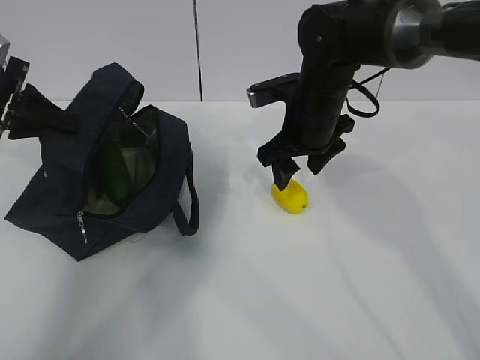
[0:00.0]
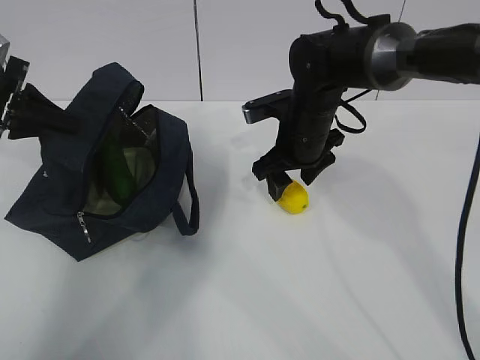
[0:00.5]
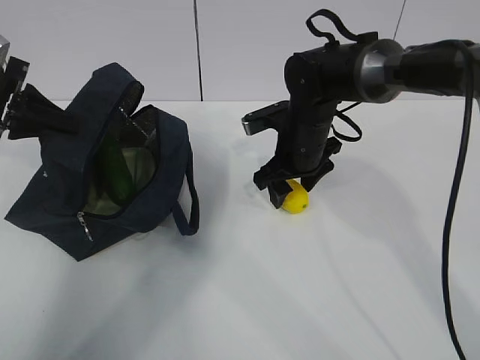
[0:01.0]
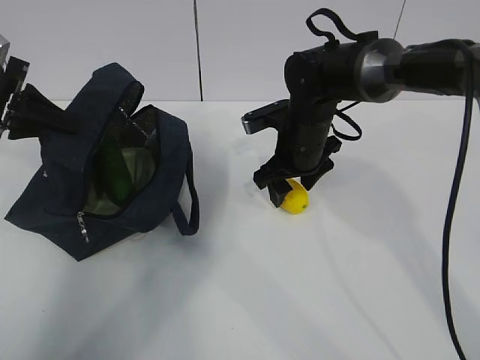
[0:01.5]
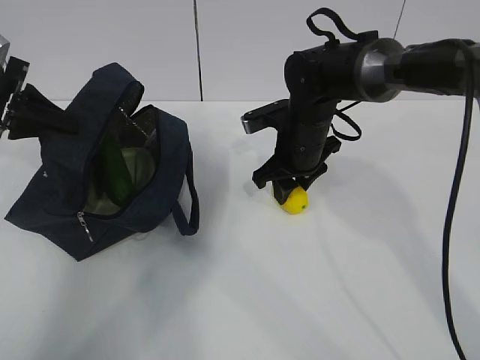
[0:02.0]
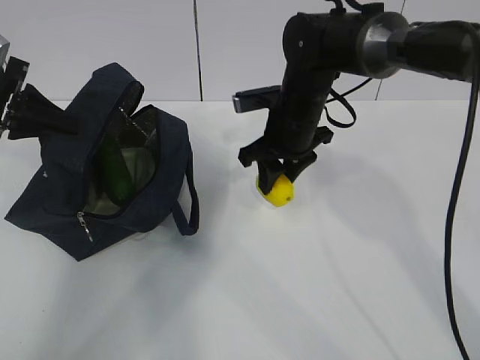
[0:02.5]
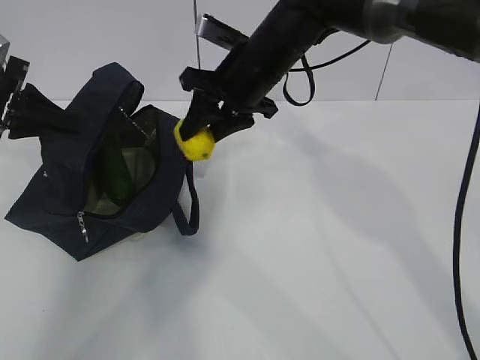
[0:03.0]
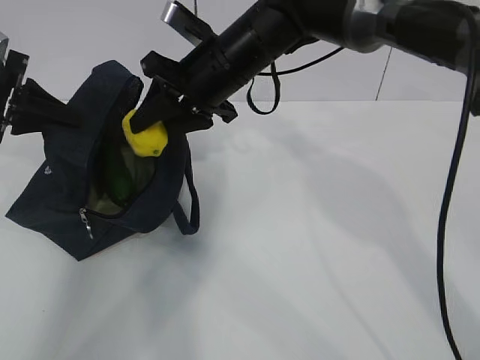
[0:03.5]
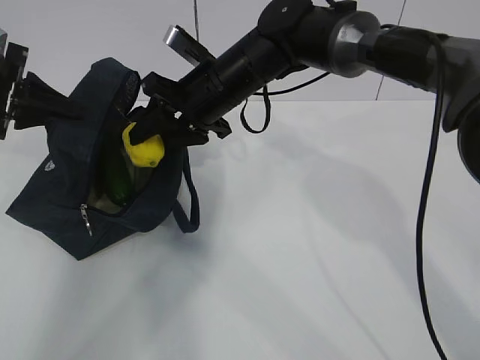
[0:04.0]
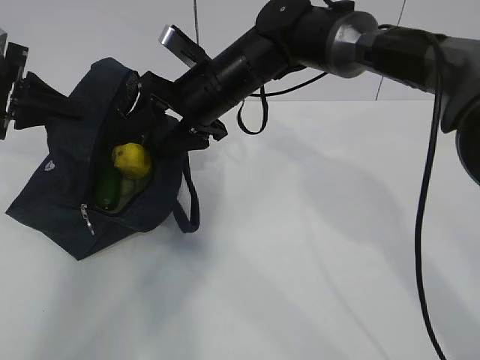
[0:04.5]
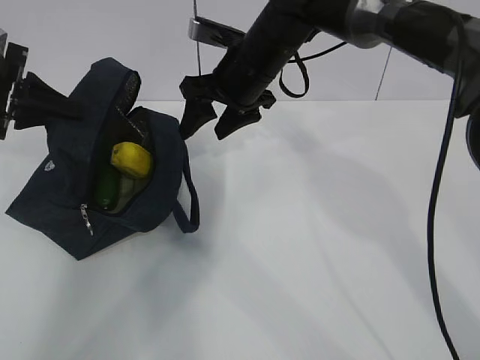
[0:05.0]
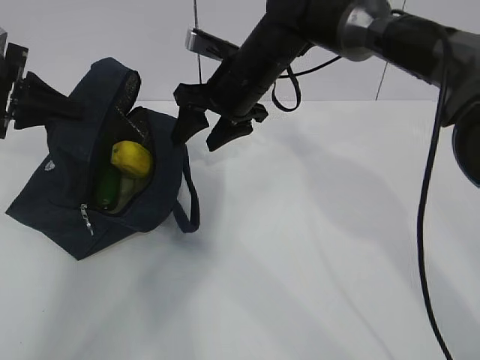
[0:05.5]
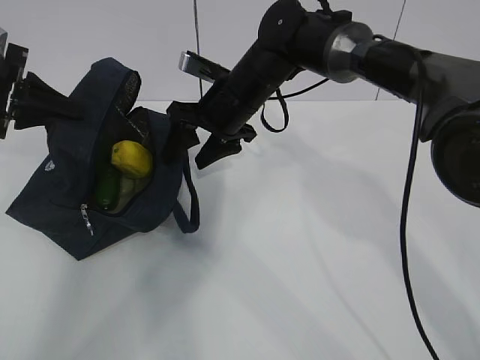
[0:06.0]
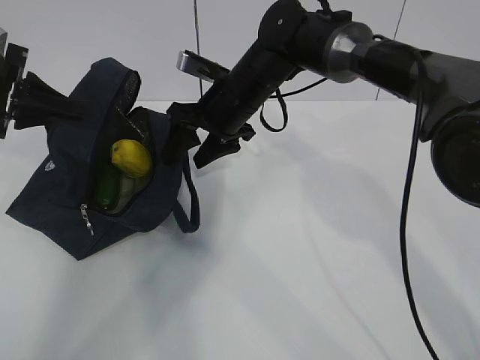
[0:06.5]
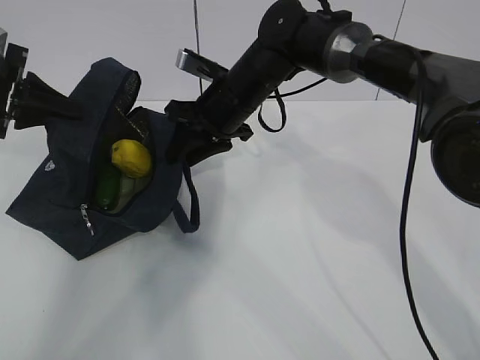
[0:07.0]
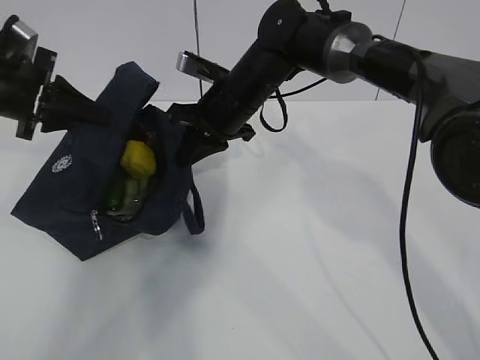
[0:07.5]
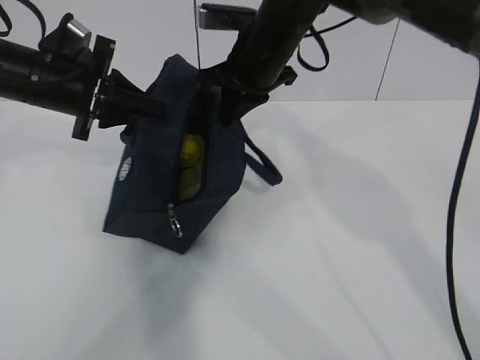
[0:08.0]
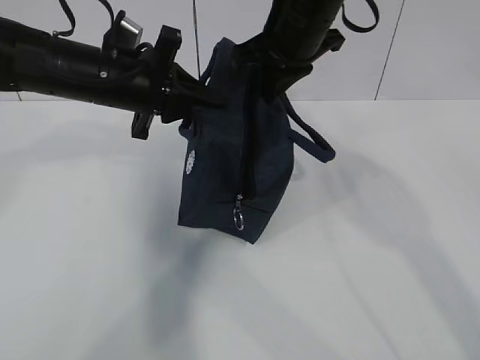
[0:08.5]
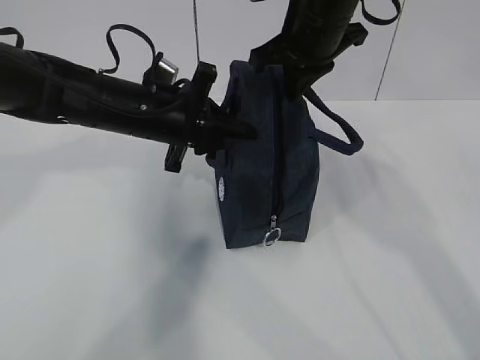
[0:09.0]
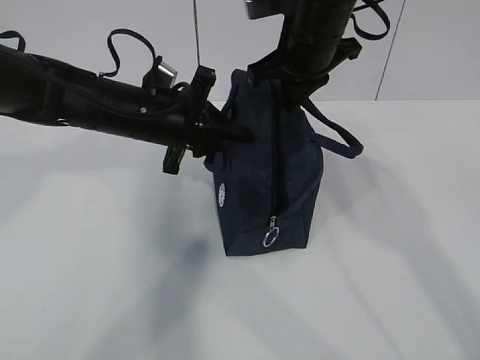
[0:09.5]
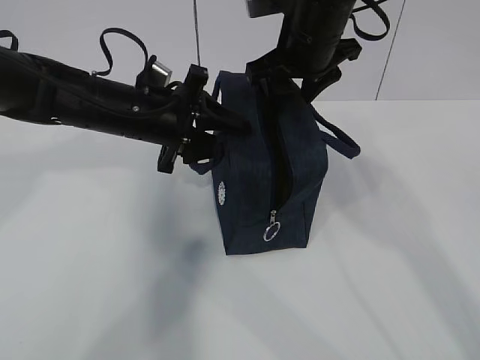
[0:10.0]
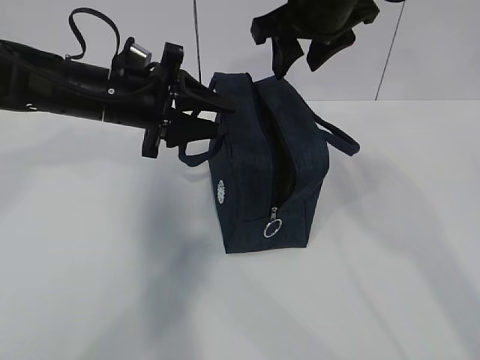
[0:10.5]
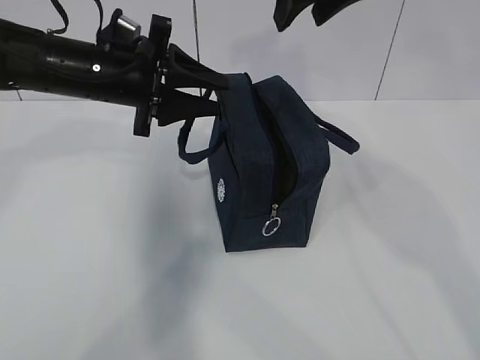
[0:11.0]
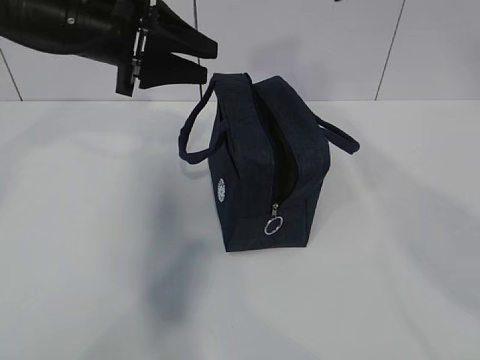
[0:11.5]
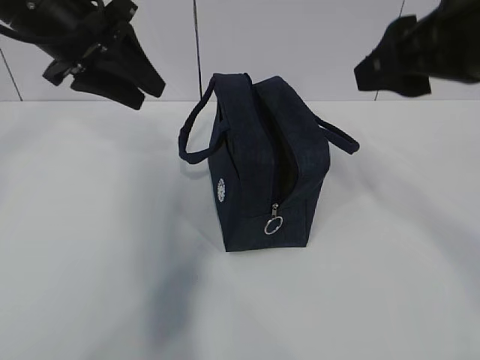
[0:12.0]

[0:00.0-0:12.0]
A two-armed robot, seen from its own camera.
Step, 0:00.0 to 0:01.0: Grab the lunch bag with your right hand.
Step, 0:01.5 to 0:04.0: Move the lunch bag to the right.
0:00.0 to 0:02.0: The right gripper is displaced downward by roughly 5 cm.
0:02.0 to 0:04.0: The right gripper moves to the left and upward, approximately 15 cm.
0:06.0 to 0:08.0: The right gripper is displaced upward by roughly 5 cm, and closes. Meanwhile the left gripper moves to the right, some 10 cm.
0:08.0 to 0:10.0: The right gripper shifts by approximately 5 cm, and opens up; the left gripper is displaced to the right by roughly 10 cm, and opens.
0:10.0 to 0:12.0: The left gripper is displaced upward and to the left by approximately 15 cm, while the right gripper is displaced backward, to the right and upward by roughly 20 cm.

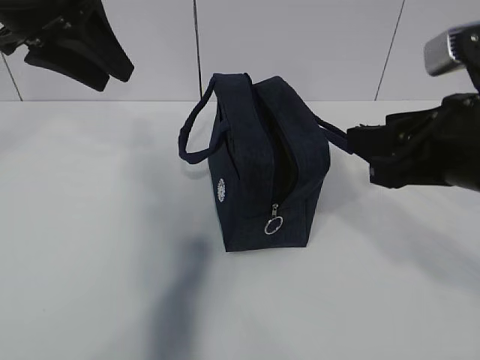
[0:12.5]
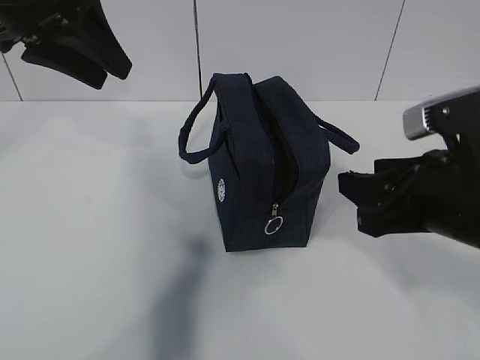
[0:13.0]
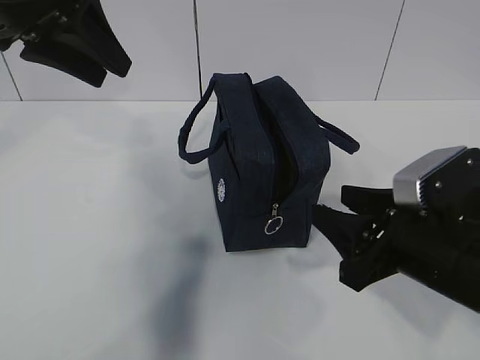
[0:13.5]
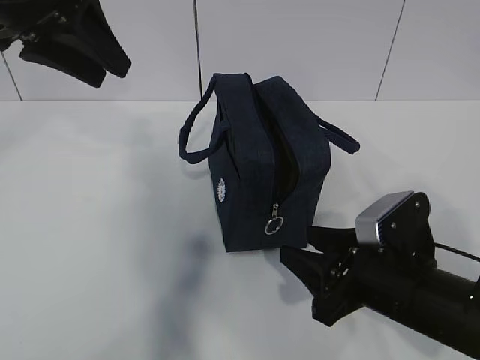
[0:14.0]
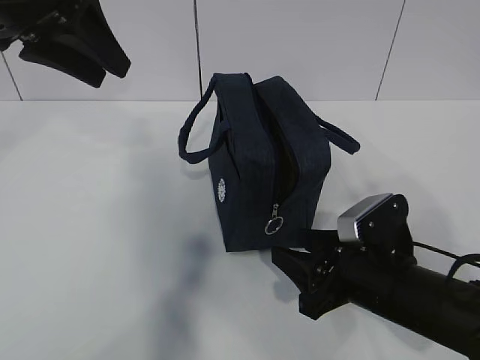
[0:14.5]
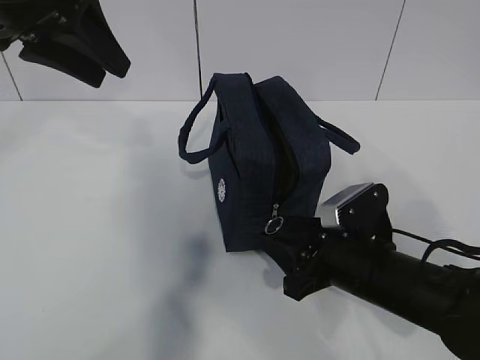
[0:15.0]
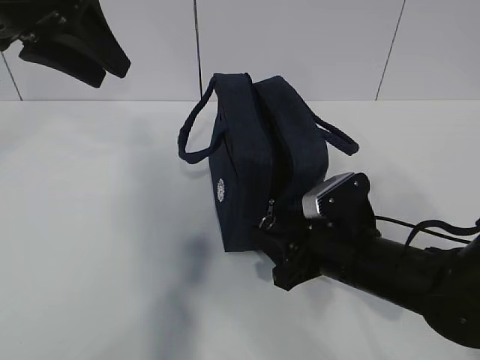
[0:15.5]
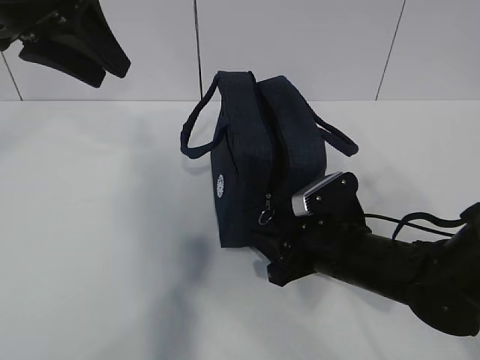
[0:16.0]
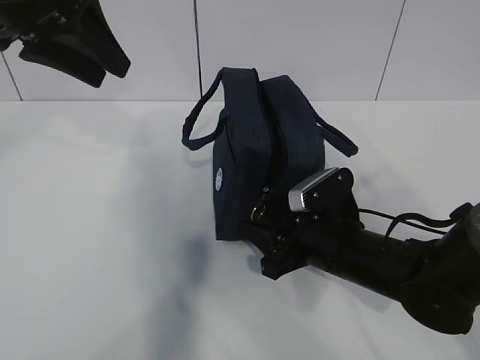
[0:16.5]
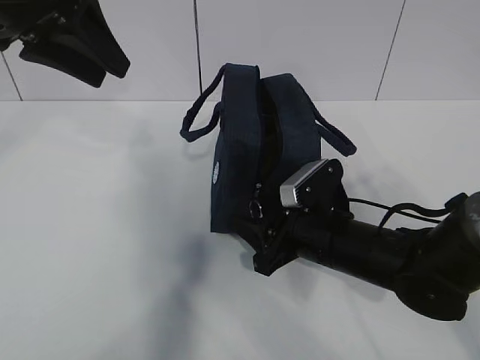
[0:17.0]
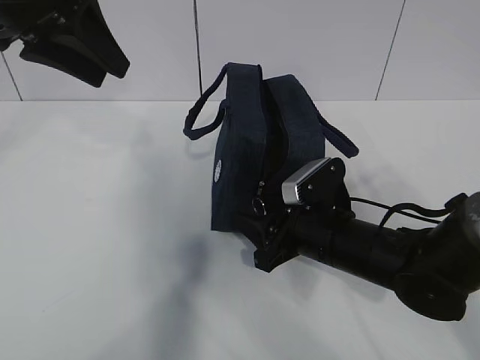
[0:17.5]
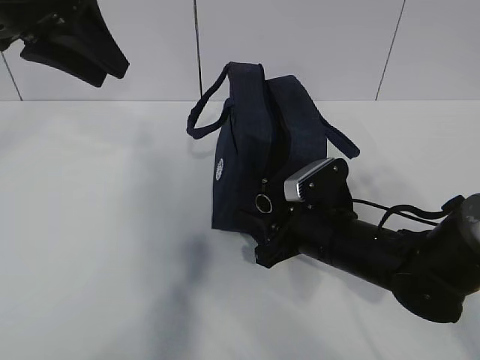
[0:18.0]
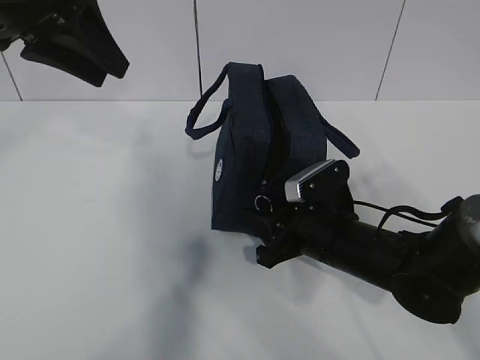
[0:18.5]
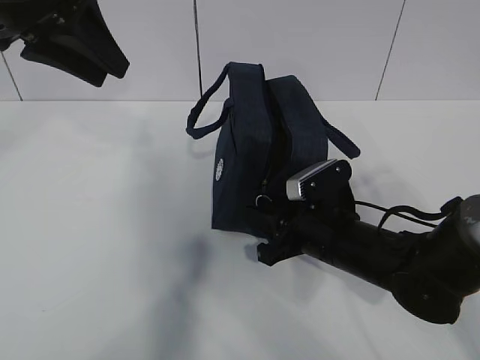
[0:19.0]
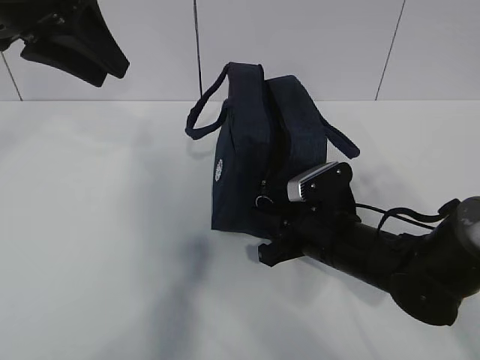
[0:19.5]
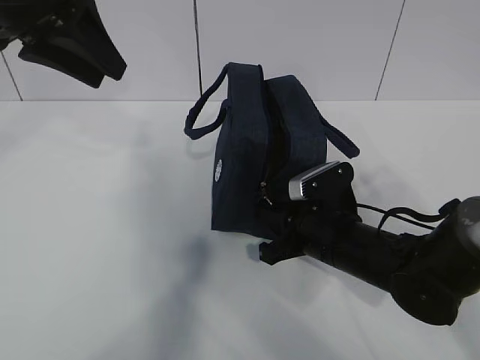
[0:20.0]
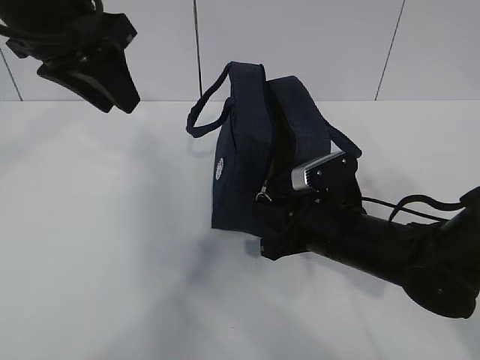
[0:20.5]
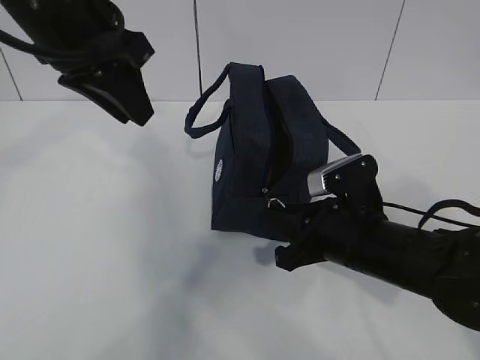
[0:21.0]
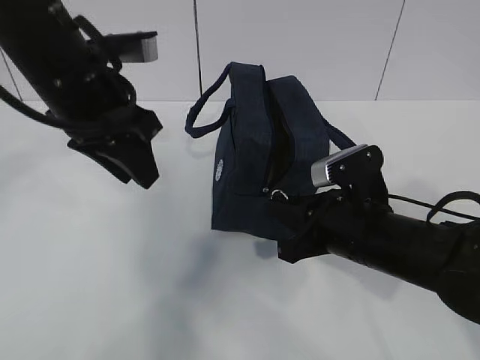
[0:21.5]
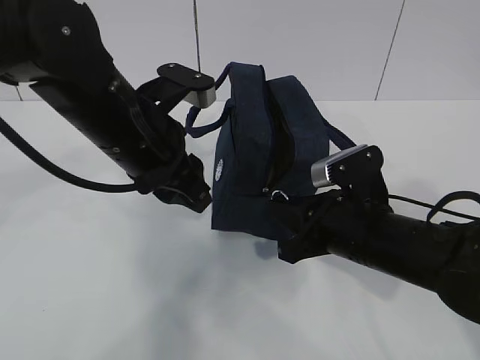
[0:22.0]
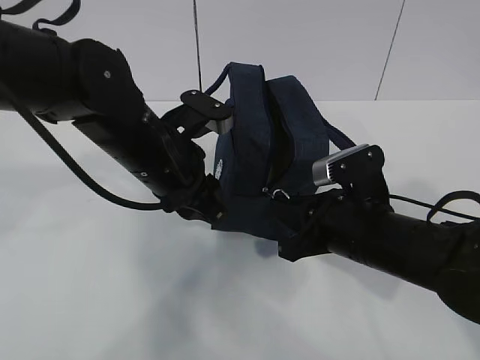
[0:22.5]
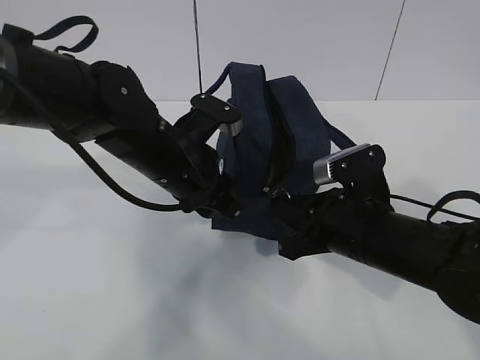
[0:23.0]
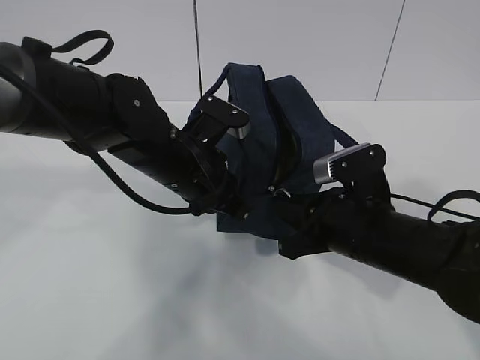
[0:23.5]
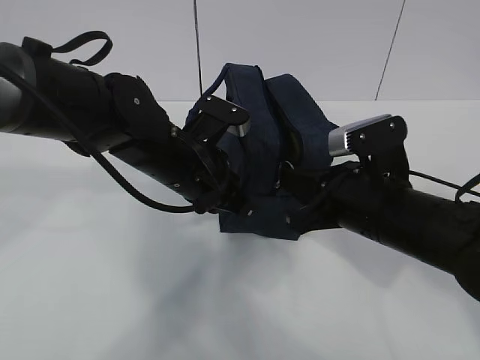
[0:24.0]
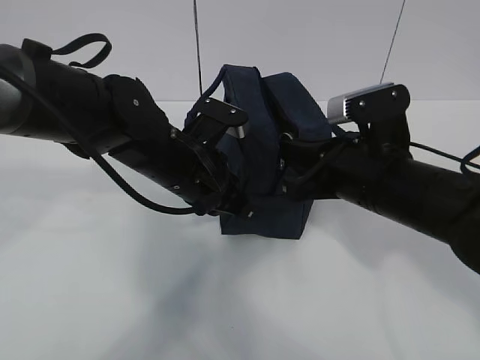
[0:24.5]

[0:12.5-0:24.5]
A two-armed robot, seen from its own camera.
Step, 0:18.0 to 0:23.5: Pull the zipper with your right hand.
0:12.5 to 0:14.5: The right gripper heads downward, covering approximately 15 cm.
0:14.5 to 0:16.5: The right gripper travels forward by some 5 cm.
0:16.5 to 0:18.5: There are only small adjustments of the grippers.
0:18.5 to 0:20.5: The right gripper closes its fingers.
0:20.5 to 0:22.5: The left gripper moves downward and to the right, approximately 15 cm.
0:22.5 to 0:24.5: The right gripper shifts some 5 cm upward; the left gripper closes its fingers.

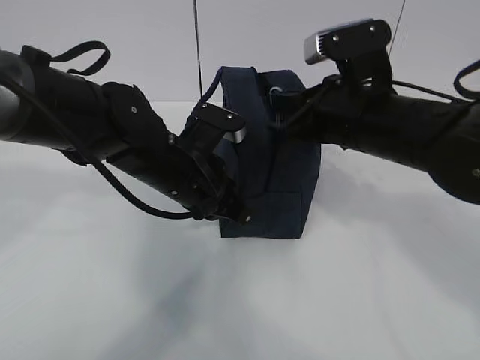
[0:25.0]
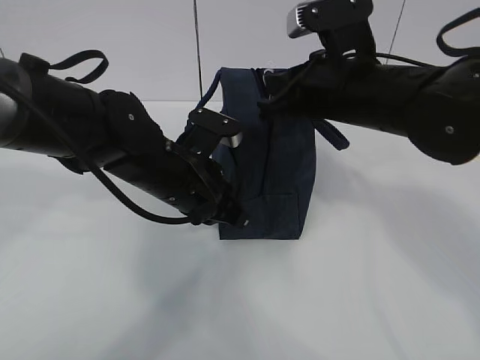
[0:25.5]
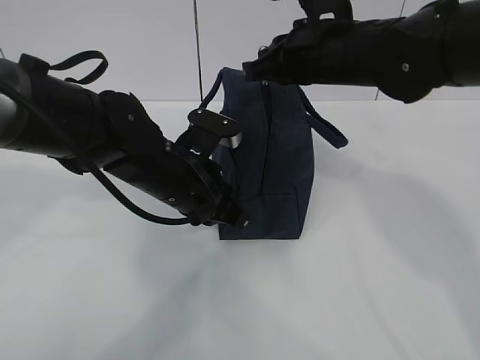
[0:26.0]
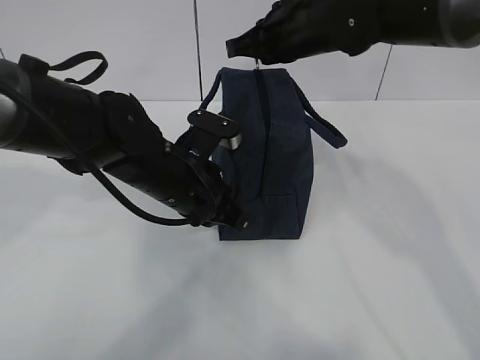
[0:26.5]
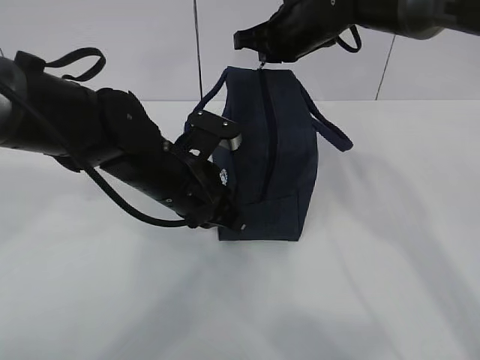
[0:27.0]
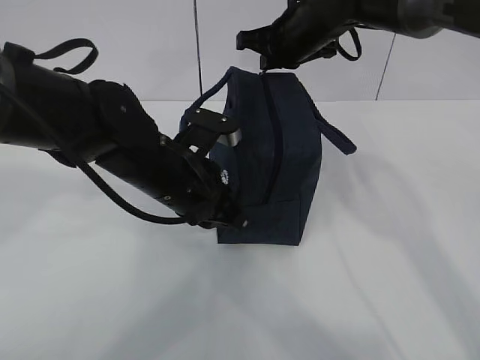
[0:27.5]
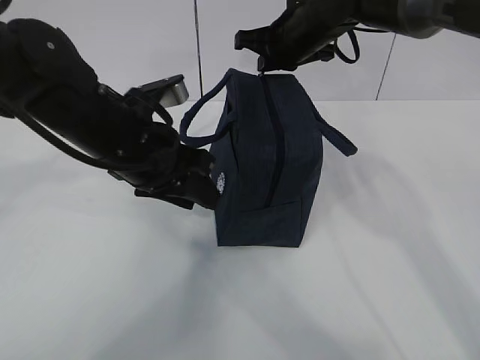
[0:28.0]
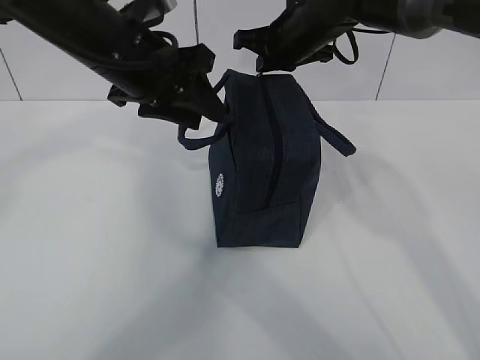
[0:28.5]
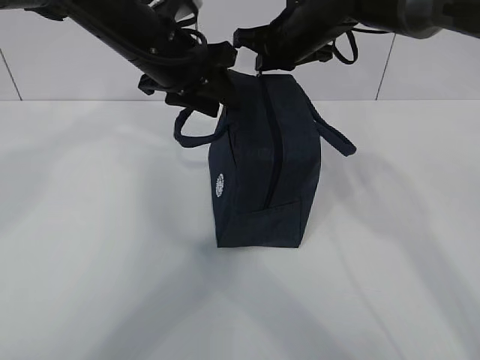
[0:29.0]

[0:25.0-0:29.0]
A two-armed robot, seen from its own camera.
0:25.0 to 0:27.0: The right gripper goes about 15 cm forward.
0:27.0 to 0:29.0: The left gripper is displaced upward and forward by some 15 cm, and opens.
